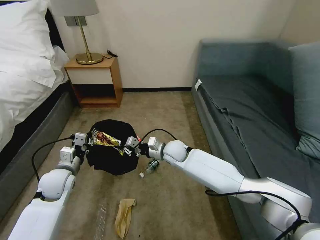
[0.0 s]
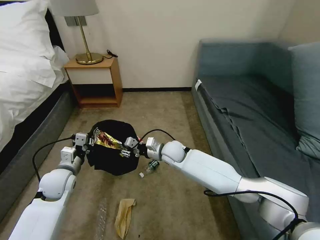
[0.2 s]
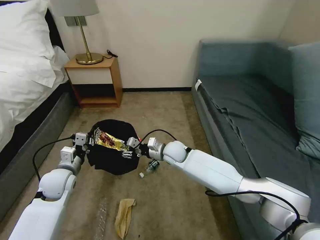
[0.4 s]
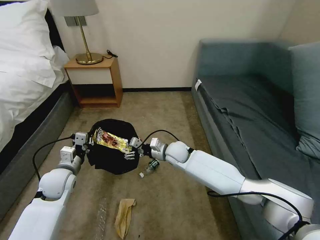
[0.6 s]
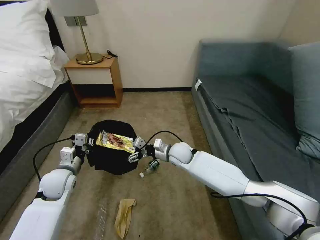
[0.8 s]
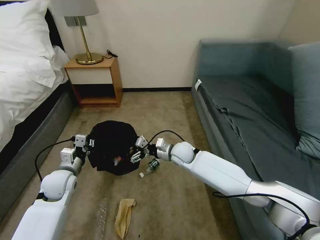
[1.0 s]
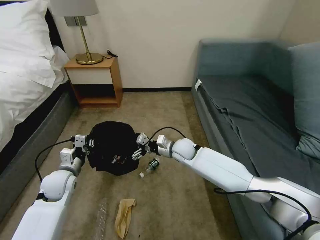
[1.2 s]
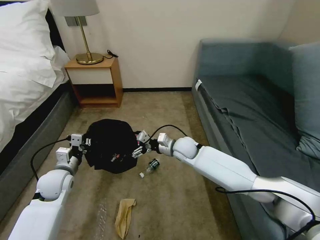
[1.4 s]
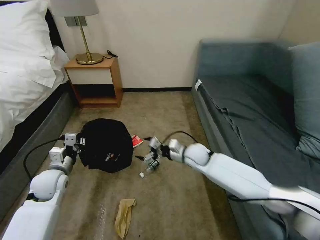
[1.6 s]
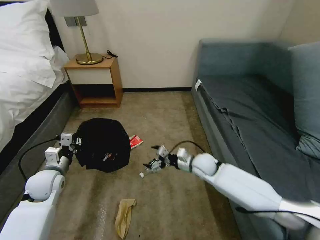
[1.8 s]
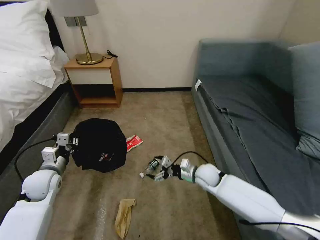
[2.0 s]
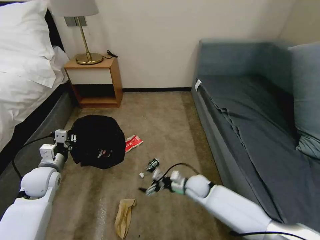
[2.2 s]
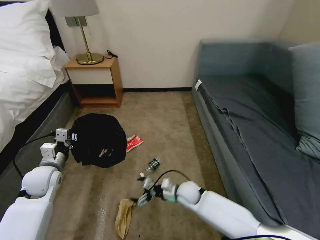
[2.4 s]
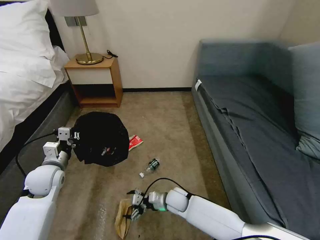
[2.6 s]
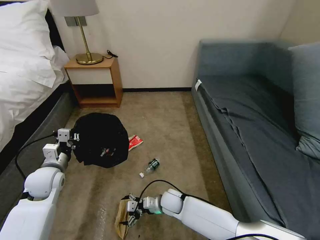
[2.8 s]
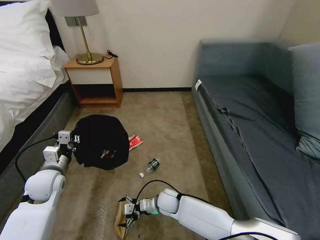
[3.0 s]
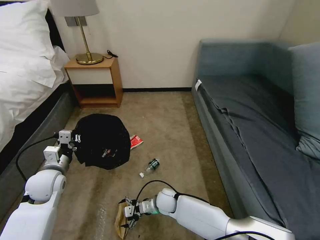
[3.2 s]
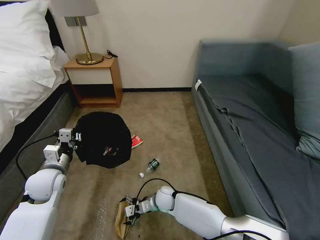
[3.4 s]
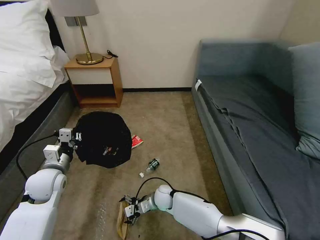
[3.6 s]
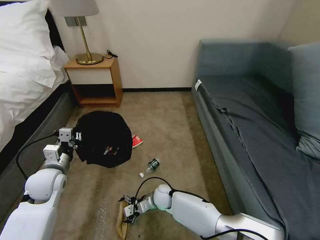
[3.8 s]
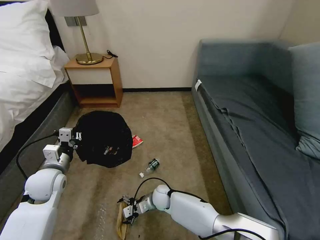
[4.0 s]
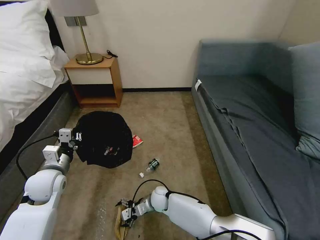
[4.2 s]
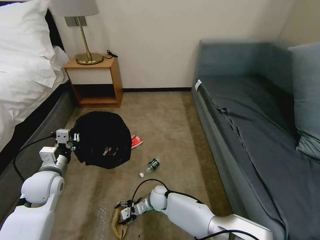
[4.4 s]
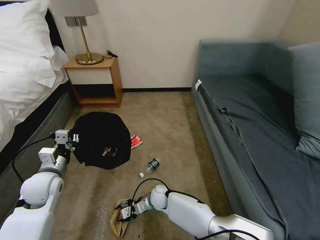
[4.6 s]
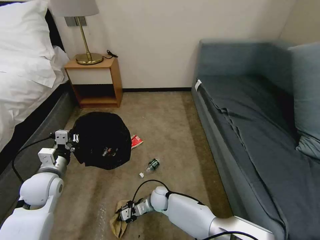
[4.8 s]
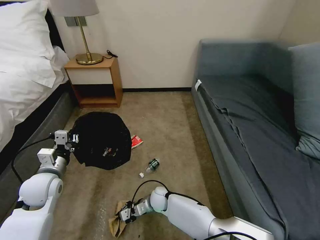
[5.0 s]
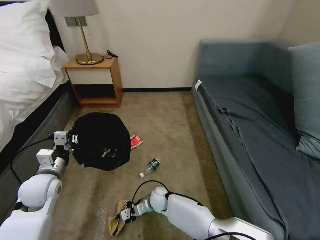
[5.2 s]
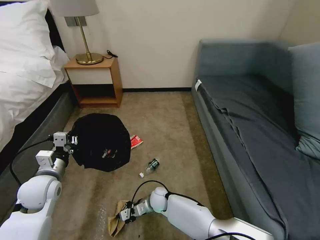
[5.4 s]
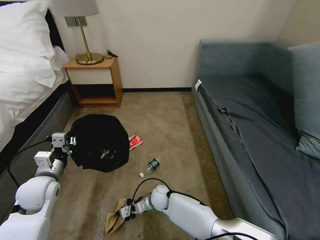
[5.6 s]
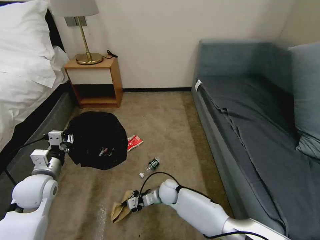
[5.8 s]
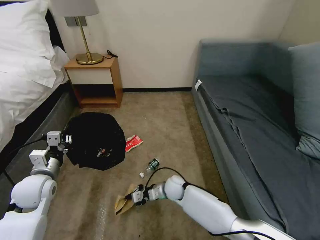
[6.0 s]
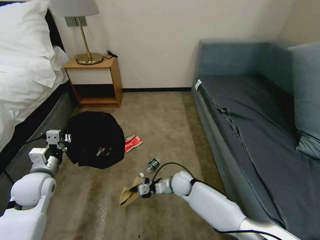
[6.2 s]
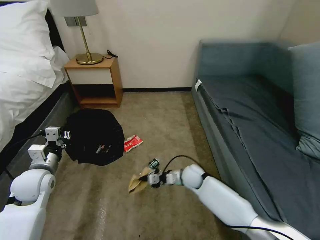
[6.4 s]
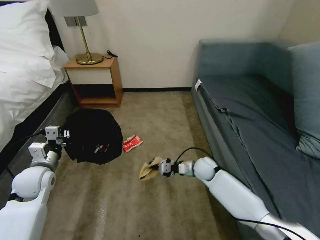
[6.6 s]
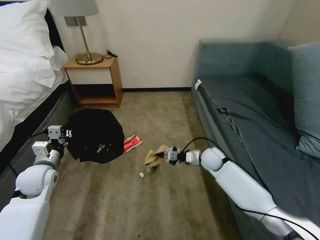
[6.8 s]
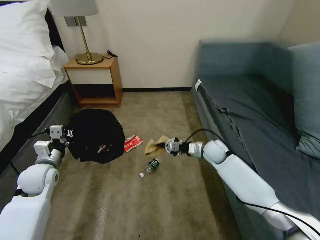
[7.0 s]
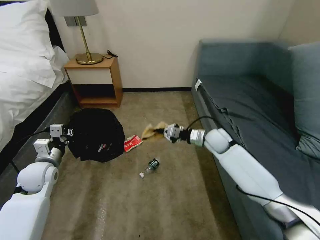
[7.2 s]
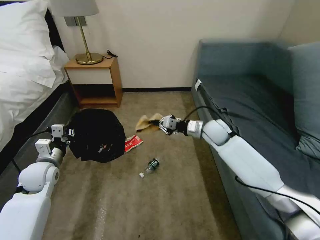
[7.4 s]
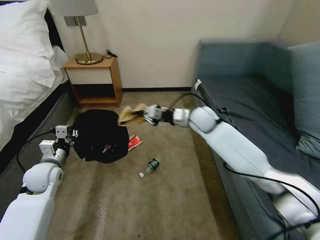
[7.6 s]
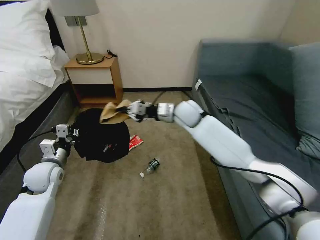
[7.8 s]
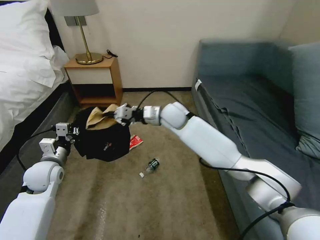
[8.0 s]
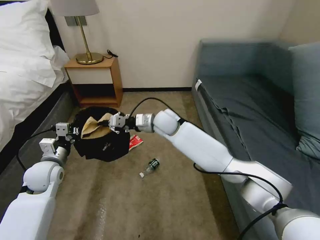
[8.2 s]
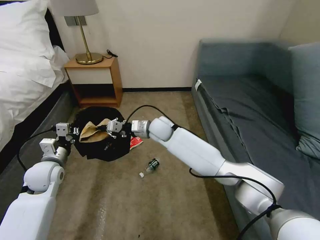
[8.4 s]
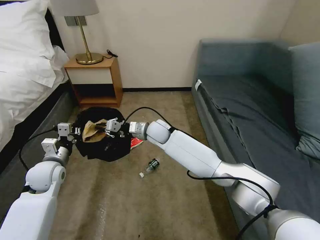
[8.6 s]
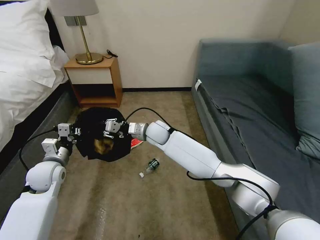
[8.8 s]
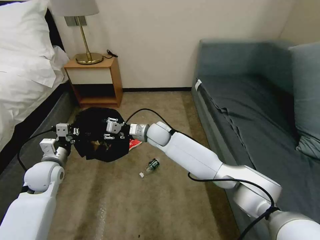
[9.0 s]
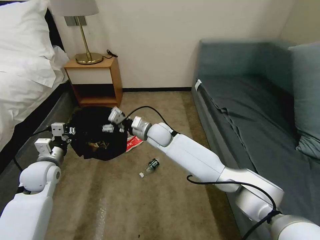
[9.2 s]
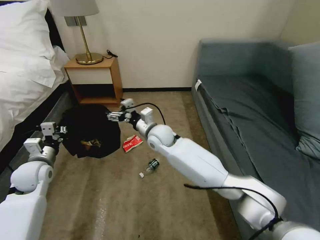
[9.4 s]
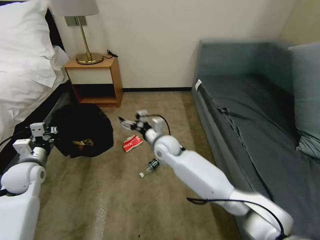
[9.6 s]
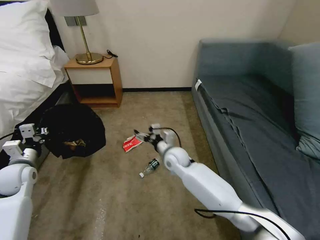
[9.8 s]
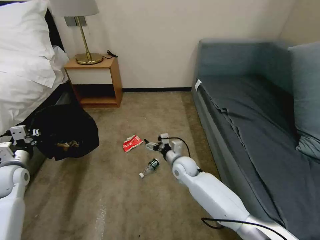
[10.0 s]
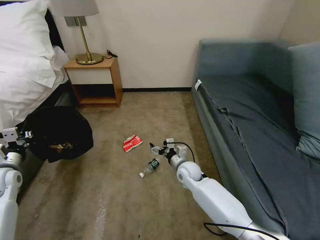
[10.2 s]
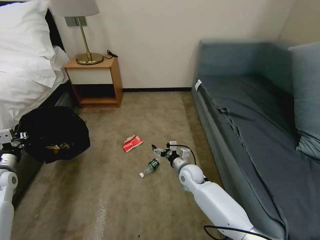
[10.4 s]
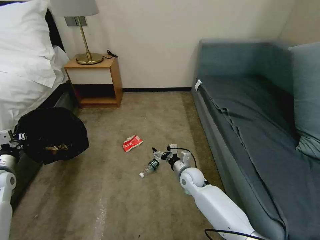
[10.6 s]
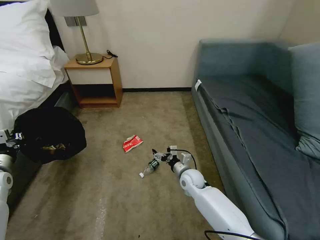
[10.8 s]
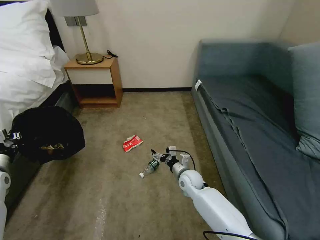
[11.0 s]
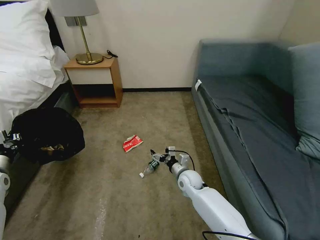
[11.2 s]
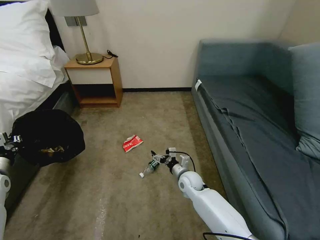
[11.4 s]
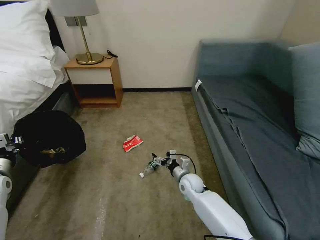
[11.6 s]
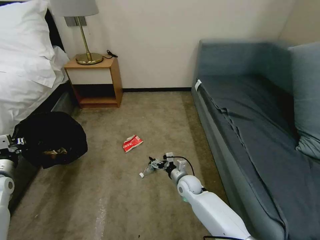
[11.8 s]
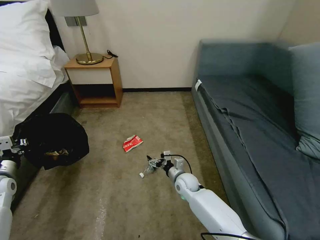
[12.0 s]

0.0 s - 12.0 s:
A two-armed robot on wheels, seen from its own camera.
Task of the whole recording: Pick up the trash bin, then pick up the garbage on the floor and place it into the trash bin.
0.0 s - 1.6 s: The right gripper travels to the right by about 10 cm, and opens.
1.6 s - 3.0 s: The right gripper travels downward, backward and to the left by about 25 cm.
3.0 s - 4.4 s: The right gripper changes place by some 5 cm.
4.4 s - 6.0 s: The right gripper moves to the right, some 5 cm, and closes.
6.0 s - 7.6 s: The left gripper moves forward, some 5 cm. The right gripper moves upward, forward and to the right, approximately 35 cm.
7.6 s - 9.0 s: The right gripper heads to the left, covering approximately 20 cm, and opens up.
9.0 s - 10.4 s: The right gripper travels downward, to the right and backward by some 20 cm, and opens up. Meanwhile the left gripper heads to the left, covering about 15 cm.
10.4 s - 12.0 s: The right gripper changes place by some 5 cm.

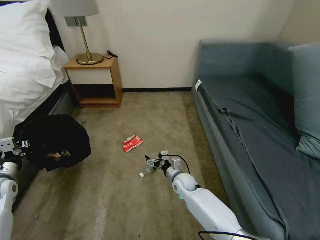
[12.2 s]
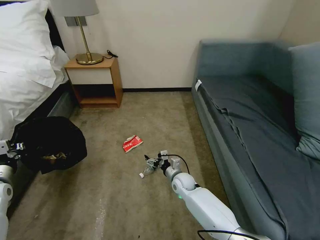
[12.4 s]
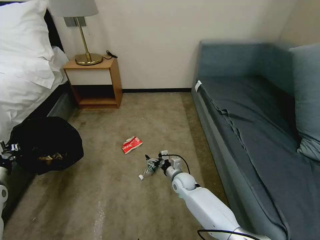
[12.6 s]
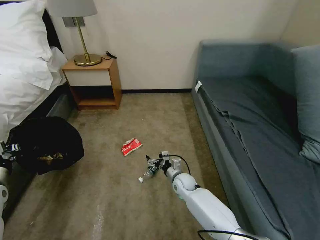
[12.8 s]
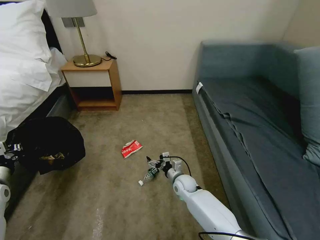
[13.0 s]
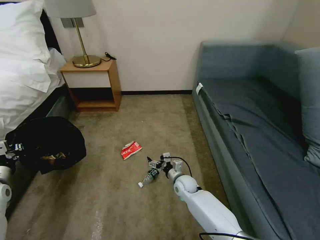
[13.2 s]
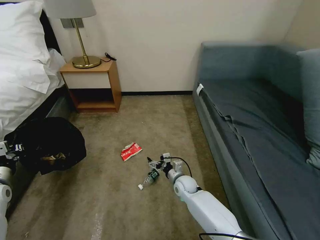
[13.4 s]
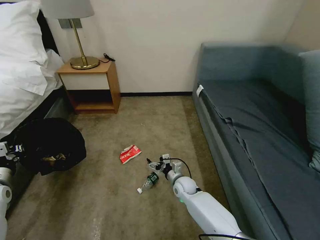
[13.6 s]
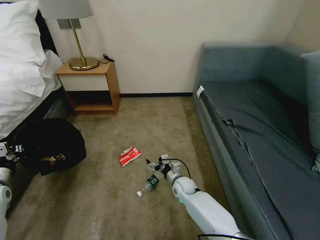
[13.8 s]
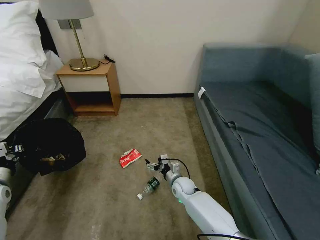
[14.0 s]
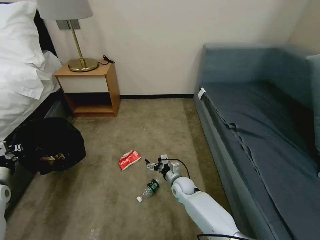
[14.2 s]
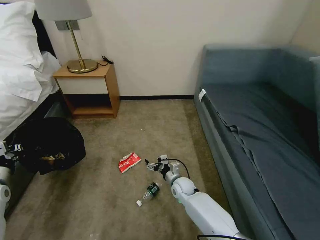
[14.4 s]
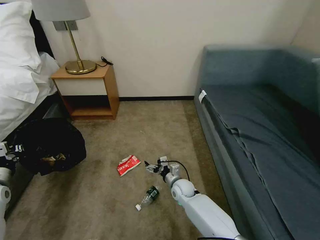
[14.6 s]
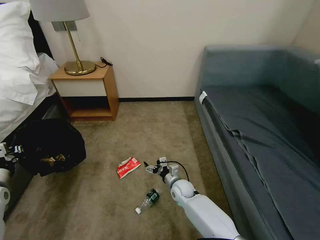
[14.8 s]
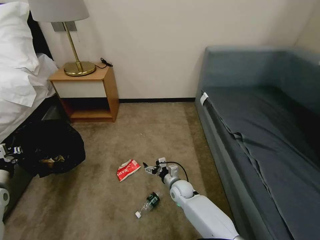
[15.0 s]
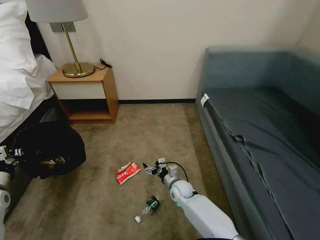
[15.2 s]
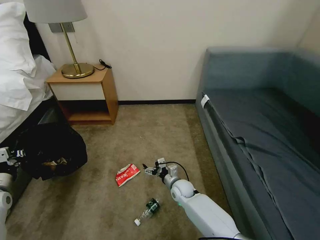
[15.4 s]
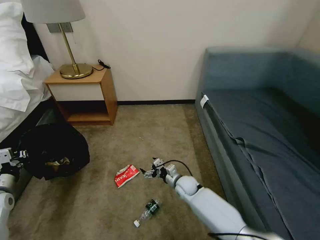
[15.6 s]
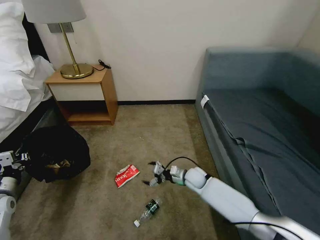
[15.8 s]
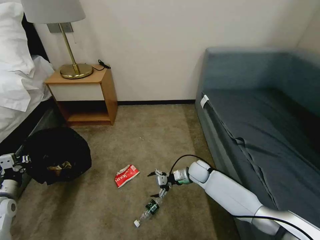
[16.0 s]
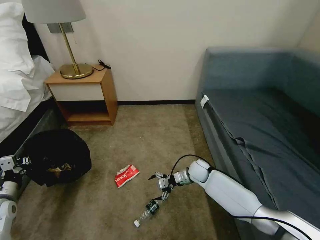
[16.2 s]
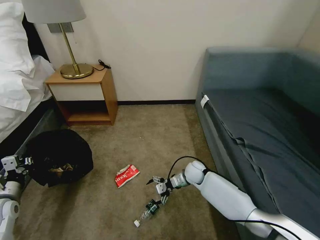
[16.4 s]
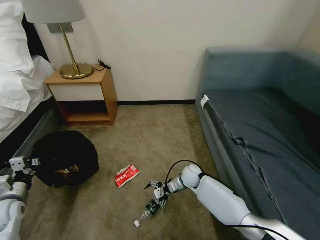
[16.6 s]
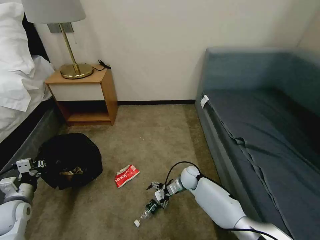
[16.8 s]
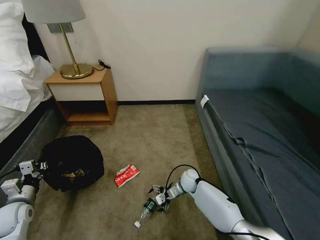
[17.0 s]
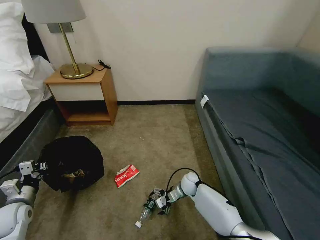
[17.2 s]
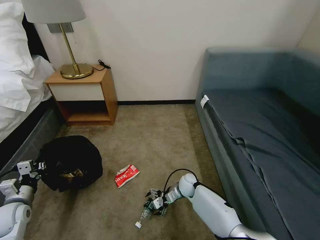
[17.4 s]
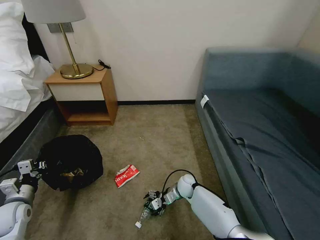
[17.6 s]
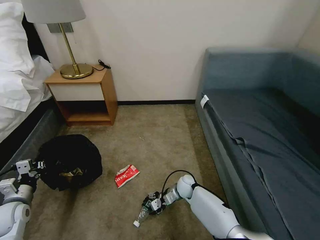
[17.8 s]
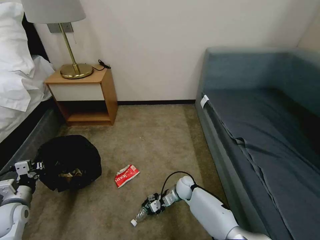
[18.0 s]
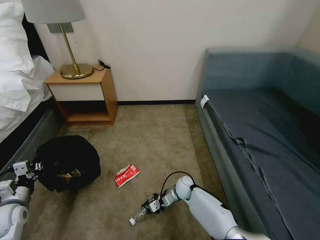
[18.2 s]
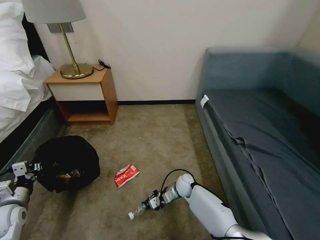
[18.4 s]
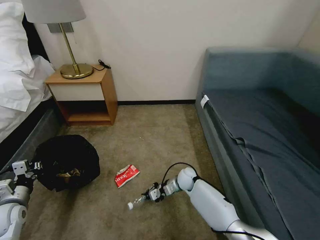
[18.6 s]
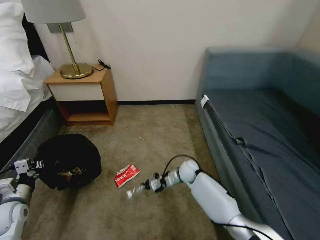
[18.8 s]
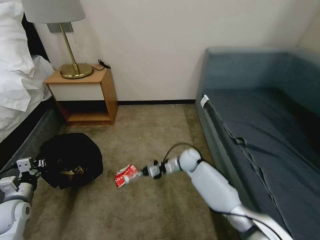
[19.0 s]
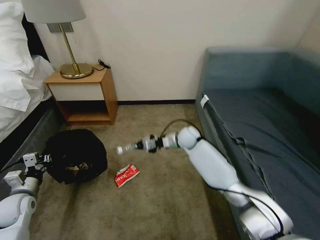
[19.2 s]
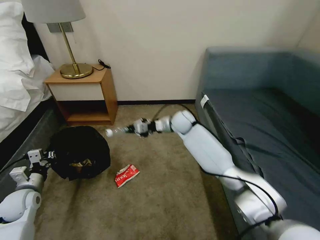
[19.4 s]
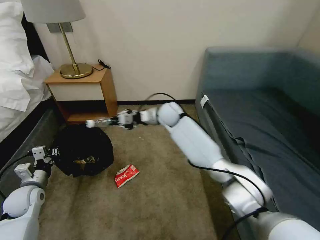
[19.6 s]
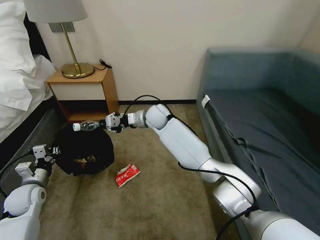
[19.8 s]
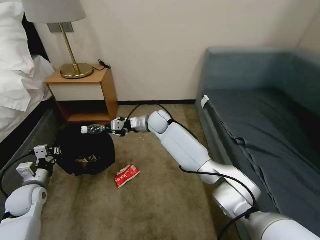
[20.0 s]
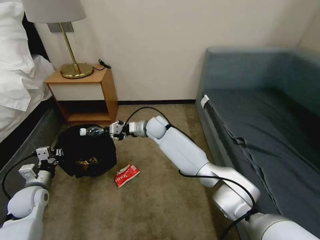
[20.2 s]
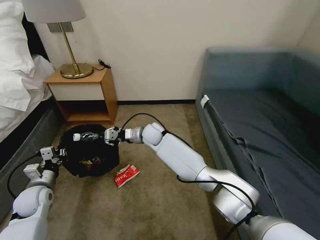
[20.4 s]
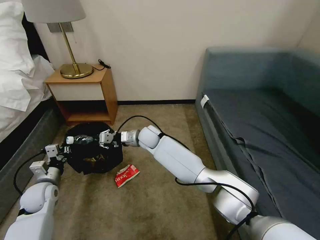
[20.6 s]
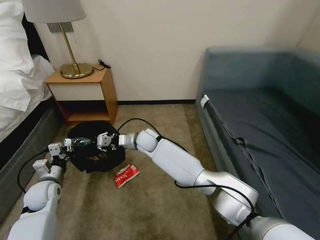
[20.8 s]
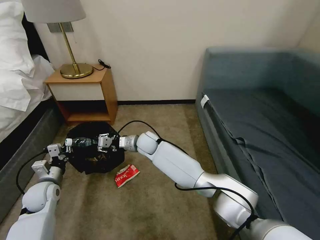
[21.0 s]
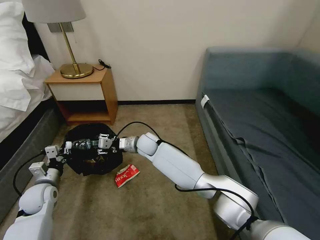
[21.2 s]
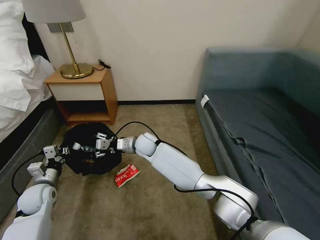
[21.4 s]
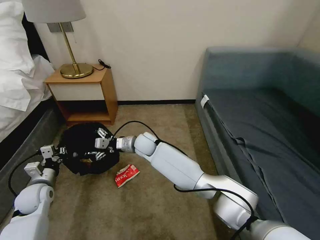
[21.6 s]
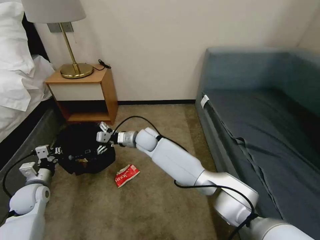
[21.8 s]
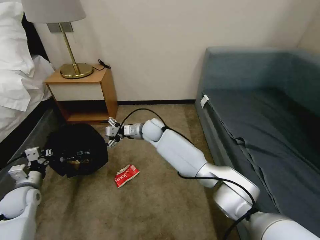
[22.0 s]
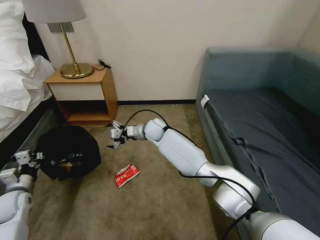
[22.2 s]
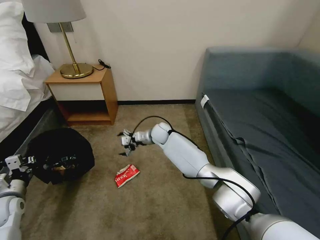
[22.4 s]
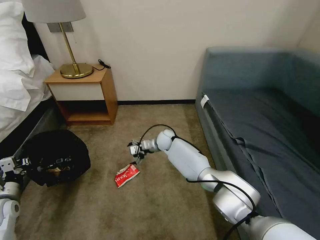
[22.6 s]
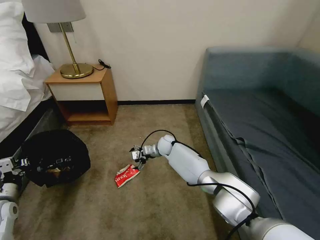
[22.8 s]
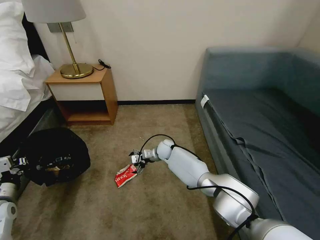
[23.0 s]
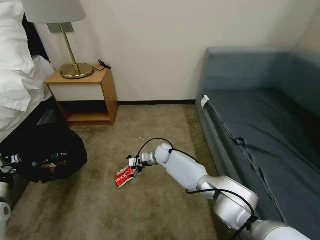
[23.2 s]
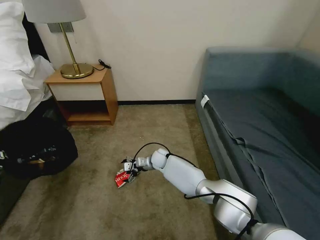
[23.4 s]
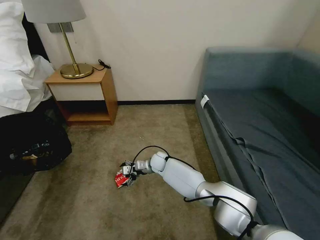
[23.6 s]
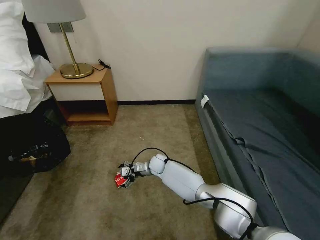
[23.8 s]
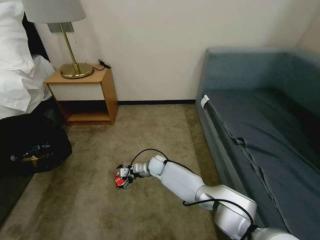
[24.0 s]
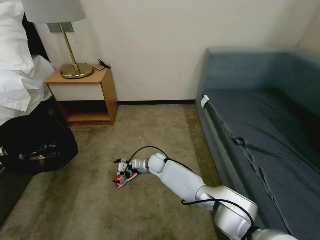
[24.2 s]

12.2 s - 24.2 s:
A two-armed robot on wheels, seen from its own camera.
Task of the whole recording: Pick up the trash bin, then pick up the garbage on the floor and place it into the trash bin.
12.2 s - 15.2 s: The grippers make only small movements.
15.2 s - 16.6 s: The right gripper shifts about 10 cm forward and to the right, while the left gripper changes place by about 5 cm.
16.6 s - 18.2 s: The right gripper heads downward, covering about 5 cm, and closes up.
18.2 s - 19.8 s: The right gripper is displaced upward, forward and to the left by about 35 cm. Meanwhile the left gripper heads forward, covering roughly 5 cm.
19.8 s - 21.2 s: The right gripper heads downward and backward, covering about 10 cm, and opens up.
21.2 s - 22.6 s: The right gripper shifts about 10 cm to the right and forward, and opens up. The left gripper shifts approximately 10 cm to the left and backward.
22.6 s - 24.2 s: The right gripper shifts some 10 cm downward and backward. Meanwhile the left gripper is displaced upward by approximately 5 cm.
